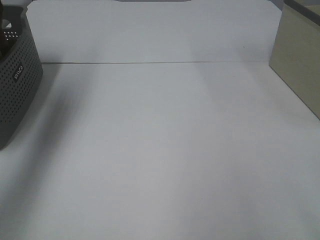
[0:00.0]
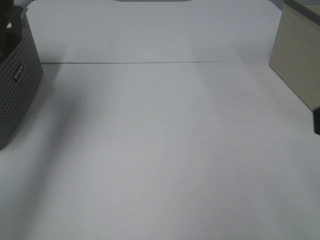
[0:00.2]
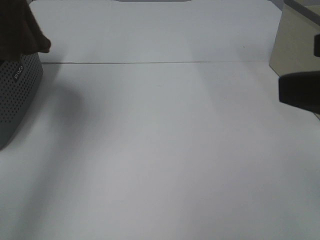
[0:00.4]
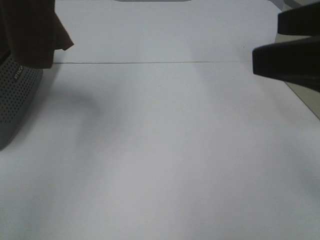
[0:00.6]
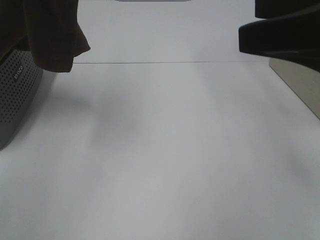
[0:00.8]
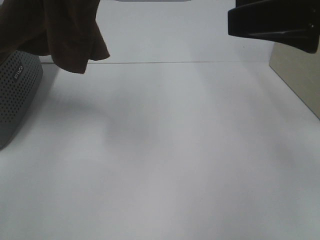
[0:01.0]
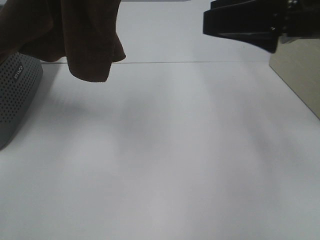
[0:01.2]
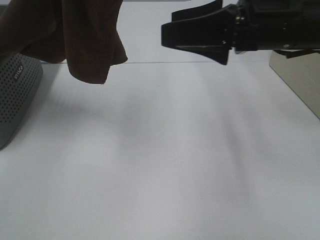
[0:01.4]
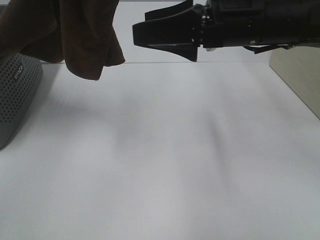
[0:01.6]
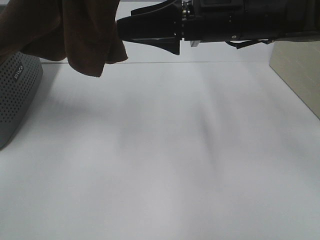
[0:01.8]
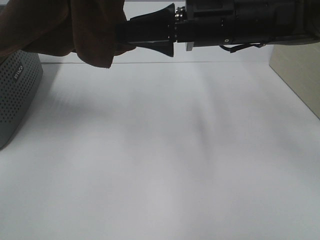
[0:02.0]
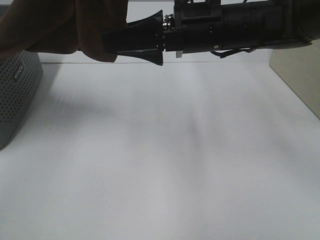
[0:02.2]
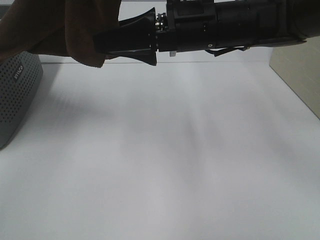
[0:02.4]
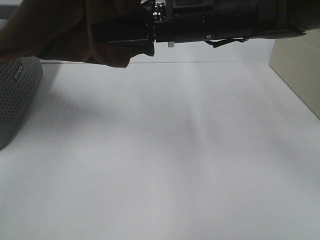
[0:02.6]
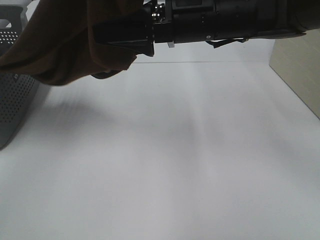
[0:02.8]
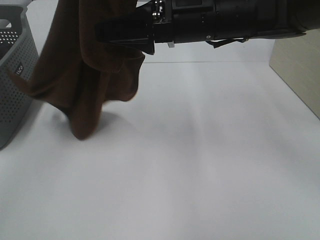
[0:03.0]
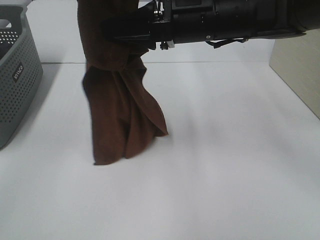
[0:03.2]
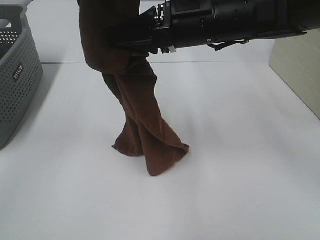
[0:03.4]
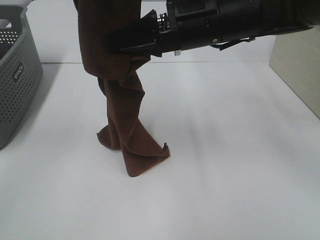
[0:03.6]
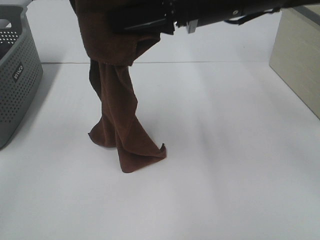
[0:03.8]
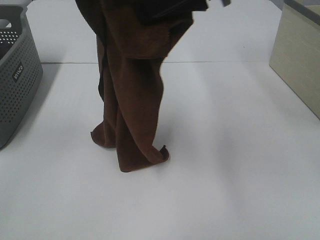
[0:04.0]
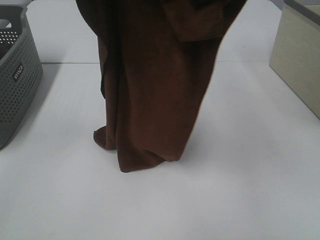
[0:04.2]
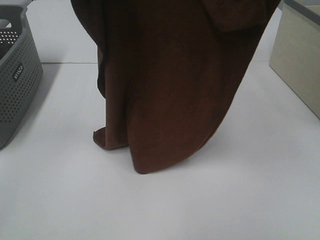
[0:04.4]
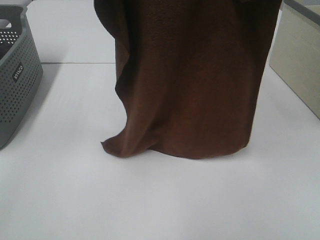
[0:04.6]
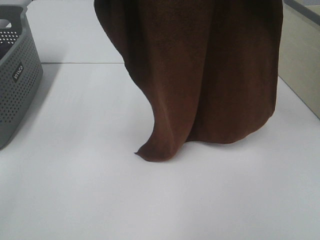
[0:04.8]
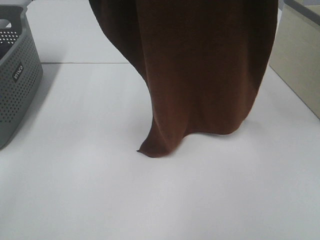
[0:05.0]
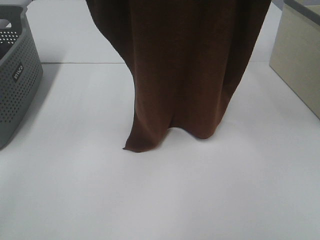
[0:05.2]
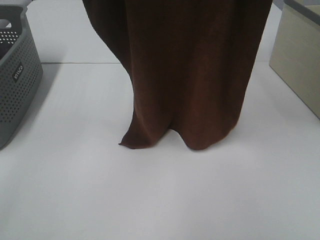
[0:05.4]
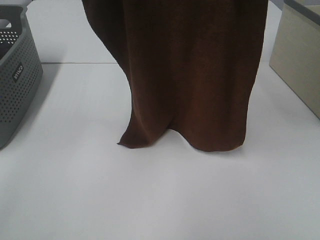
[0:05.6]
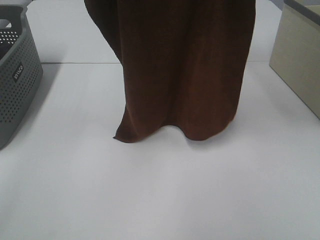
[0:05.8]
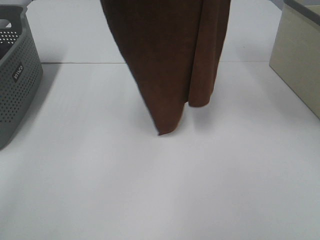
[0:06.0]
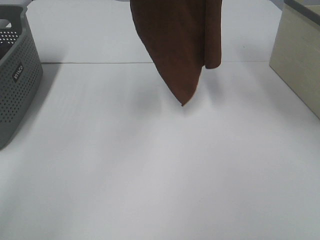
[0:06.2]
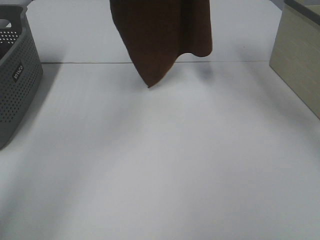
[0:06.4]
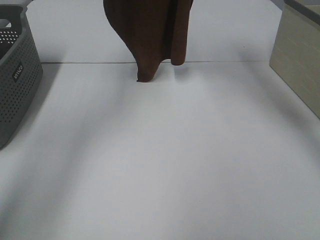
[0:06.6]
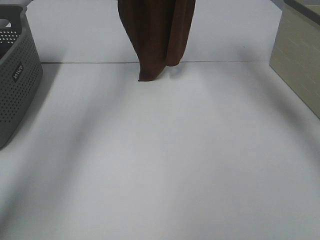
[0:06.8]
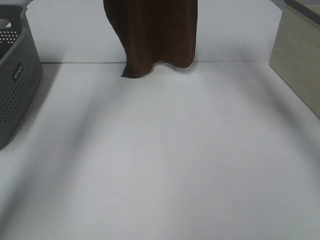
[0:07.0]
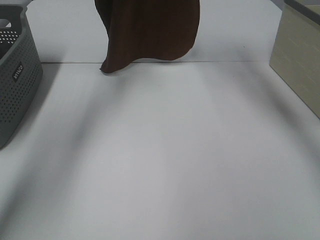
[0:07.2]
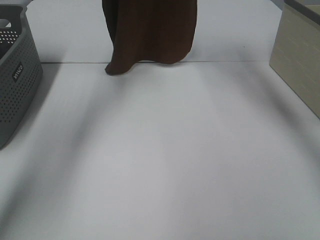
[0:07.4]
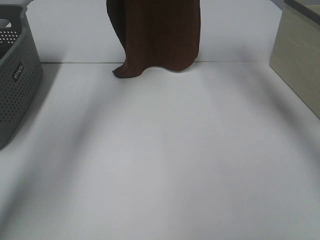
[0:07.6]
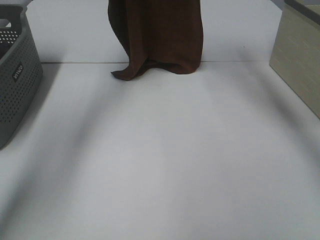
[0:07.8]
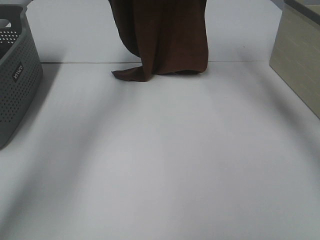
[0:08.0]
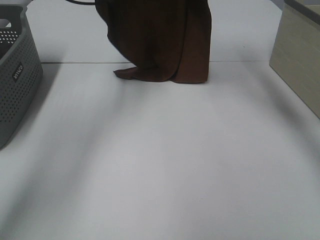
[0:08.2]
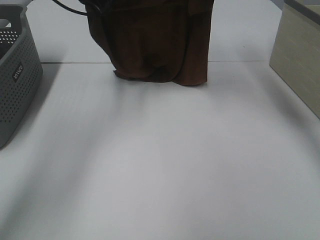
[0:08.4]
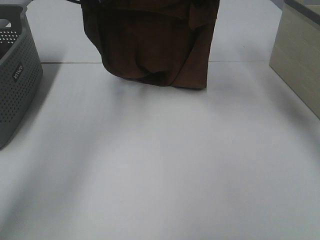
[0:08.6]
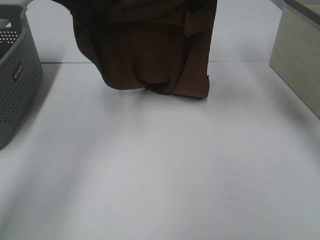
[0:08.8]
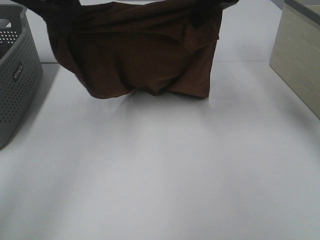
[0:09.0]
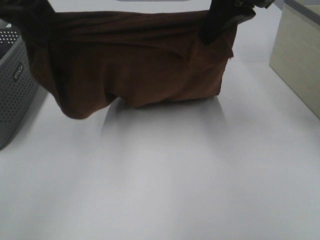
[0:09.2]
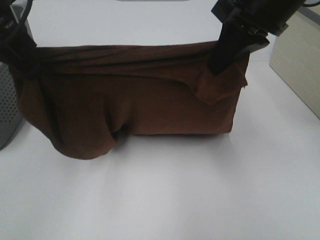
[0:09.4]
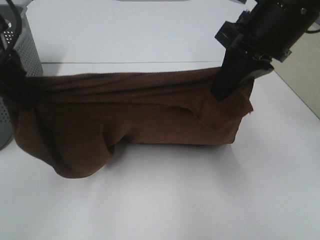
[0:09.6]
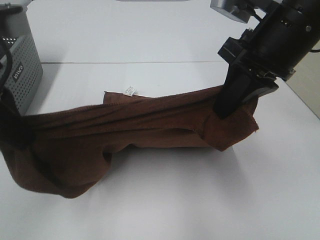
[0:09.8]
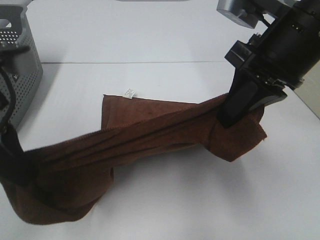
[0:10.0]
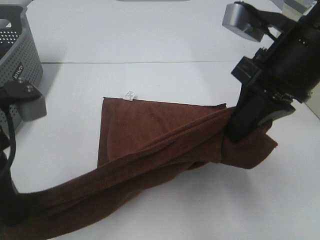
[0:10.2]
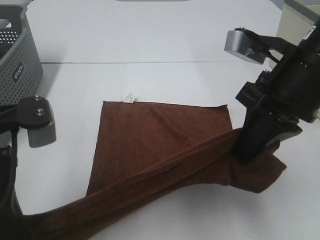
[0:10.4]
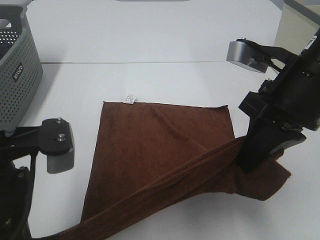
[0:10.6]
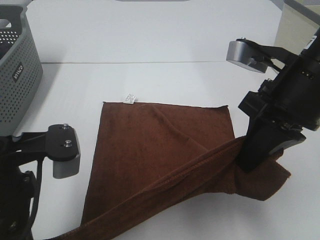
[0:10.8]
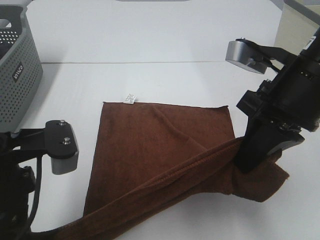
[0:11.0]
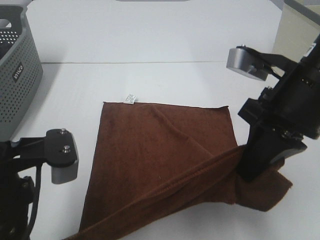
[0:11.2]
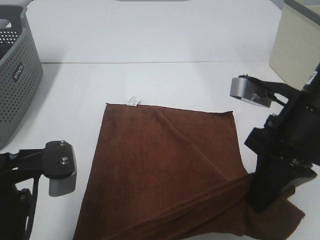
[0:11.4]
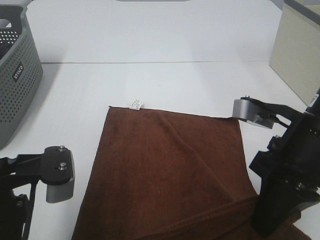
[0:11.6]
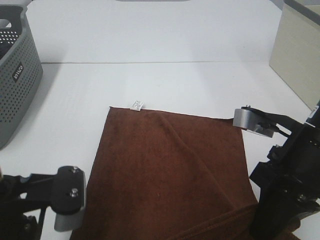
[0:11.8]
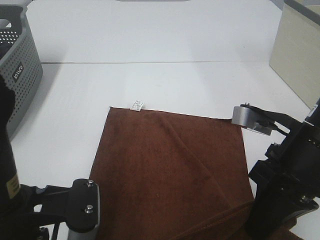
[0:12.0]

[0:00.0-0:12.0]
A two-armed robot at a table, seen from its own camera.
Task of the whole recording: Remove the towel and place it.
Step, 0:00.0 to 0:02.6: Right hand: grab a corner of the brown towel and straighten it.
Step, 0:02.8 to 0:08.6: Right hand: spread the brown towel flat on the table.
Step, 0:02.8 to 0:08.8: Left hand: spread the brown towel flat on the table.
0:00.0 to 0:01.6: The right gripper travels forward and to the left by roughly 30 cm, while the left gripper moves to the right and backward, some 20 cm.
0:01.6 to 0:03.0: The right gripper changes place by roughly 5 cm.
0:03.0 to 0:04.4: The right gripper shifts about 20 cm upward and to the right, and closes.
0:04.4 to 0:06.0: The right gripper shifts roughly 10 cm forward and upward, while the left gripper travels forward by approximately 10 cm.
0:06.0 to 0:07.6: The grippers both shift forward and downward by approximately 20 cm.
0:07.6 to 0:09.0: The two grippers go about 15 cm backward.
0:09.0 to 0:10.4: The two grippers go about 20 cm backward and downward.
0:10.4 to 0:12.0: The right gripper travels downward by approximately 5 cm. Meanwhile the left gripper changes place by about 5 cm.

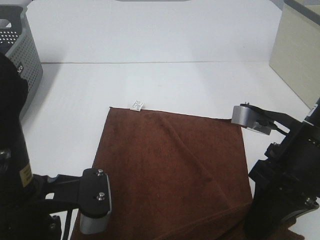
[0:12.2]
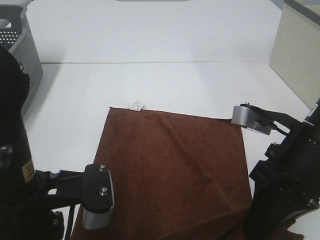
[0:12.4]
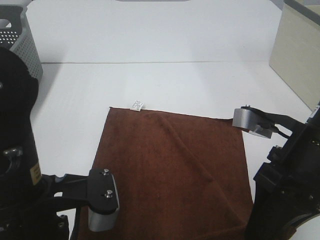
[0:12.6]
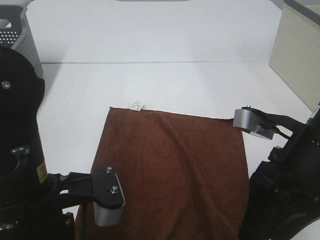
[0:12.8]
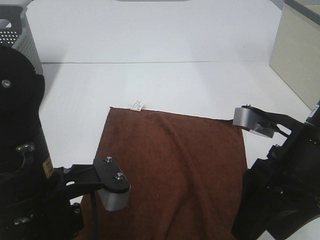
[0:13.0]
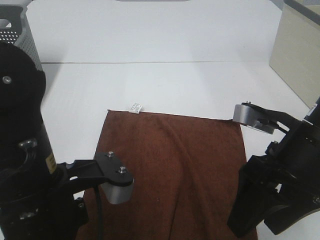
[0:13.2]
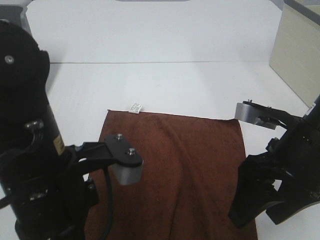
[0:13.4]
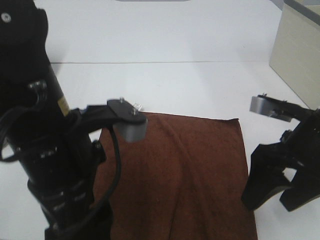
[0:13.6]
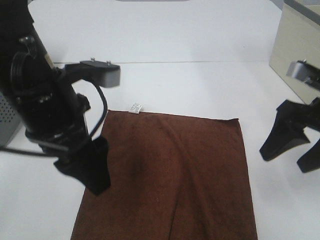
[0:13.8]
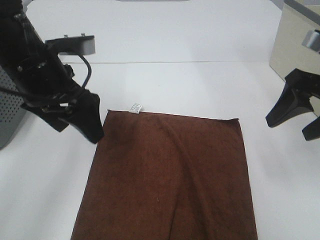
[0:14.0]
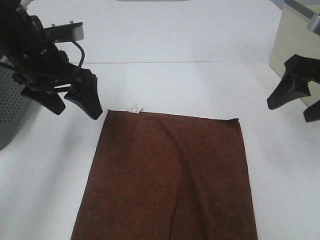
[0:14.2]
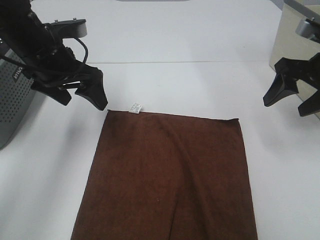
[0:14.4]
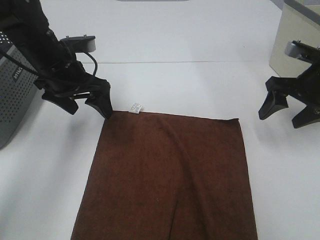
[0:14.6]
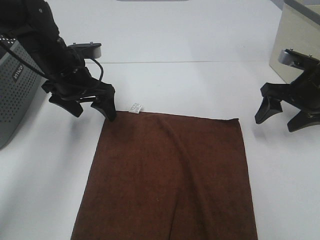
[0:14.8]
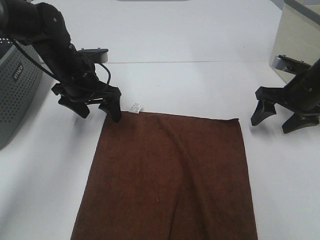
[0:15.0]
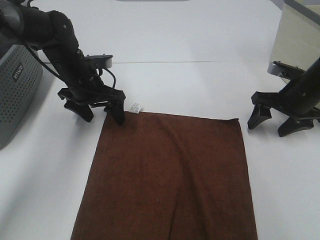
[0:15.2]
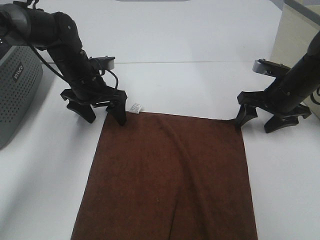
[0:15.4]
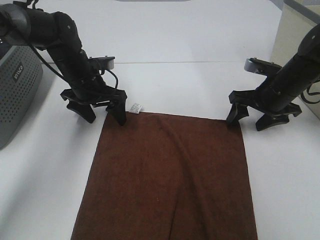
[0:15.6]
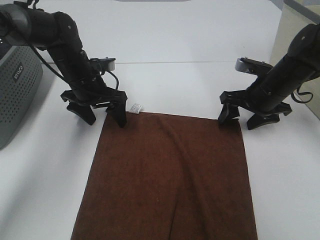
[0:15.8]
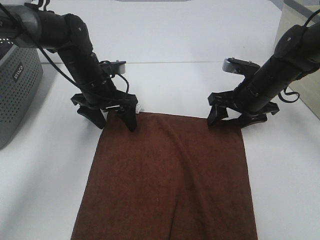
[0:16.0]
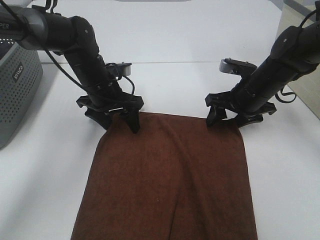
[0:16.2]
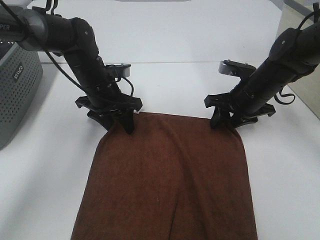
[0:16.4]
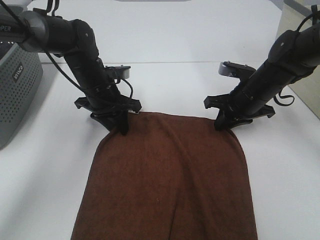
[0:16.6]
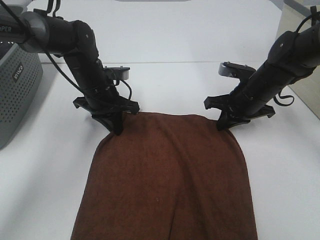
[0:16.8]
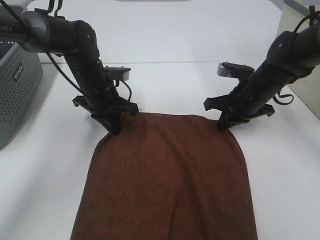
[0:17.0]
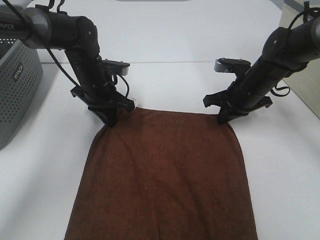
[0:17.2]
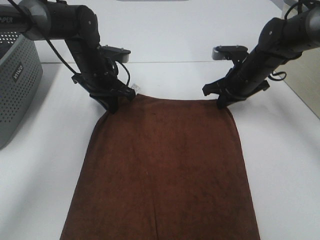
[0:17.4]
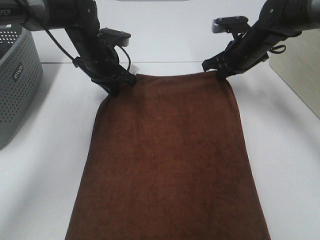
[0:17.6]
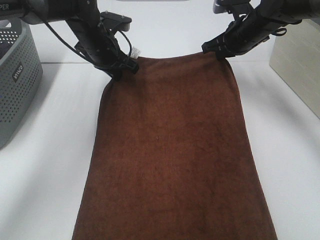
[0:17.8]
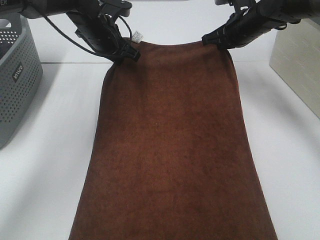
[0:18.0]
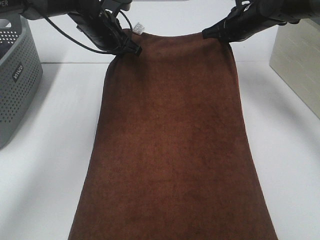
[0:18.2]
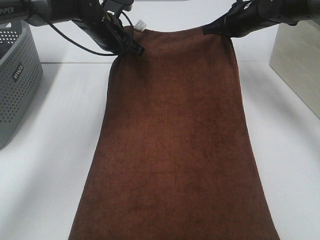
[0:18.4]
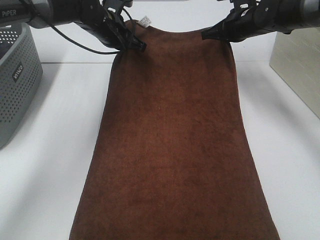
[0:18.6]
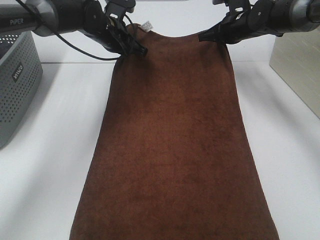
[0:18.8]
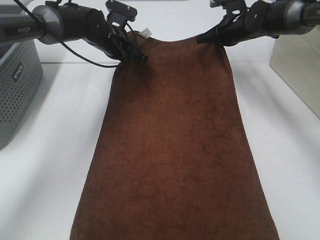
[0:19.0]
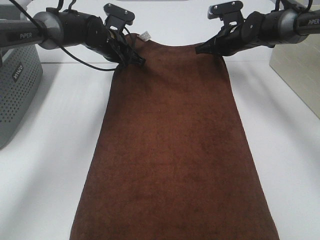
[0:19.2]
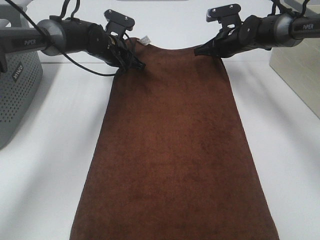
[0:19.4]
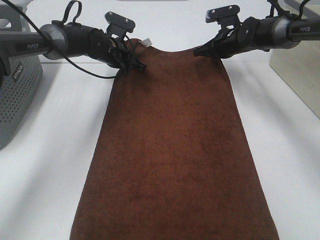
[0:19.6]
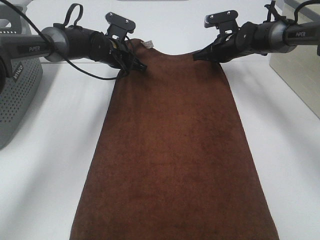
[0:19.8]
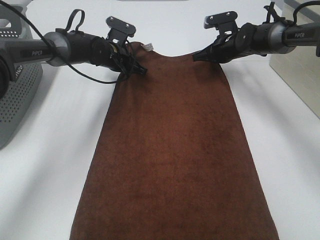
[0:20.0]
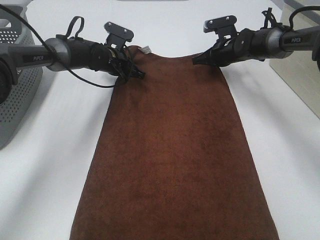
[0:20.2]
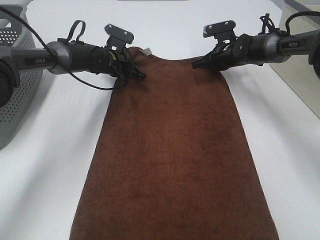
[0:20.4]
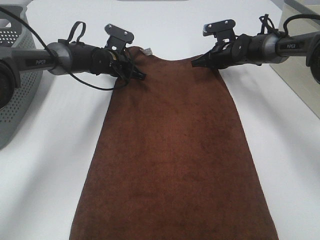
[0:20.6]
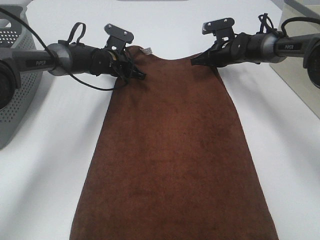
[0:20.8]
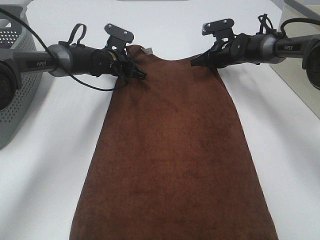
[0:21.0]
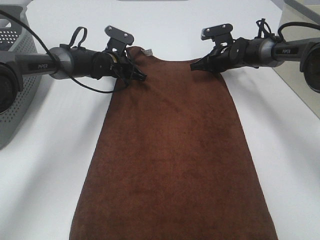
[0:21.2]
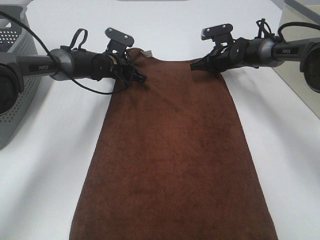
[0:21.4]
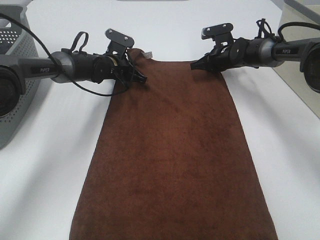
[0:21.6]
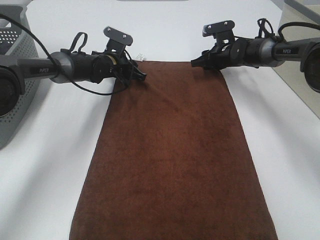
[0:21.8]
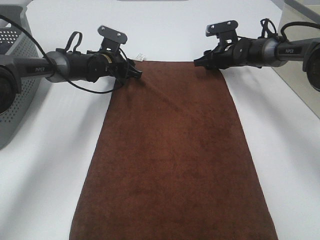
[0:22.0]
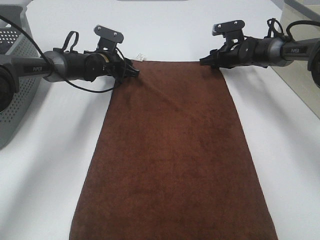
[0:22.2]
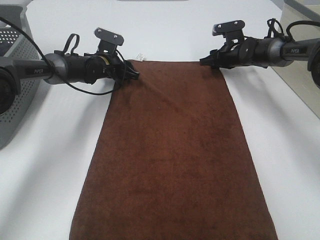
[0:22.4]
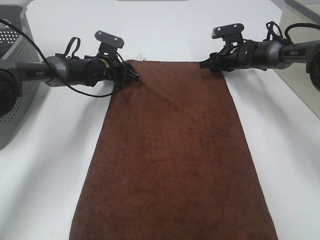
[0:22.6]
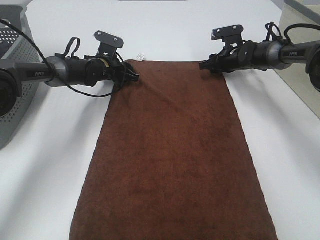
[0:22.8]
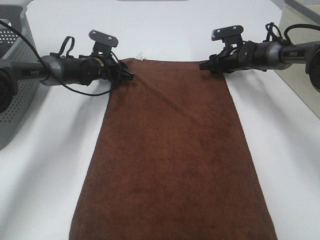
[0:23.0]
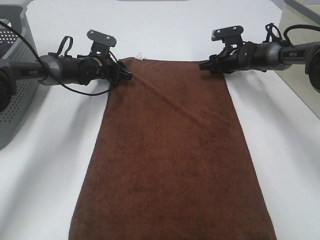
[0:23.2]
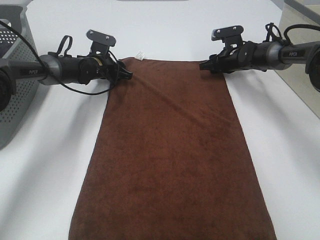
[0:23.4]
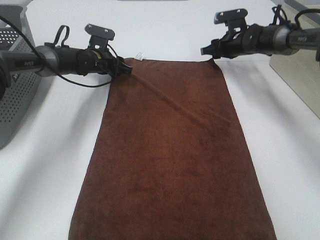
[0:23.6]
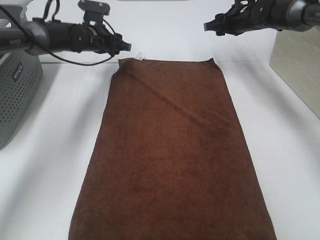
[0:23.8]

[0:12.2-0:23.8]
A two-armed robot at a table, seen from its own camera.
Task of the whole recording: Remove the towel and place it.
Step, 0:12.2 to 0:17.2: Left hand:adjust the brown towel.
Step, 0:12.2 to 0:17.2: Right hand:adjust the brown towel.
0:12.2 to 0:13.6: The right gripper opens, while the left gripper is displaced forward by roughly 5 cm, and opens.
0:13.6 to 0:15.0: The right gripper heads forward and to the right, covering some 20 cm, while the left gripper moves forward and downward, some 25 cm.
0:15.0 to 0:16.6: The right gripper moves to the left, some 10 cm, and closes its fingers. Meanwhile the left gripper closes.
0:16.6 to 0:18.0: The left gripper moves upward and forward, about 10 cm, while the right gripper heads forward and upward, covering roughly 15 cm.
0:18.0 to 0:19.4: The left gripper goes roughly 5 cm downward, while the right gripper goes roughly 10 cm downward and forward.
0:19.4 to 0:21.0: The right gripper moves roughly 5 cm.
0:21.0 to 0:22.4: The right gripper opens. Meanwhile the left gripper opens its fingers.
0:22.4 to 0:23.8: The two grippers go about 10 cm upward.
